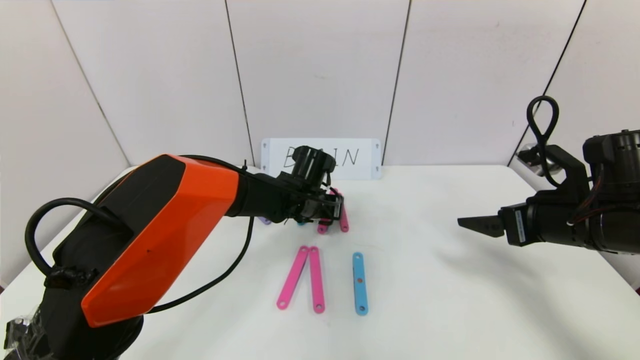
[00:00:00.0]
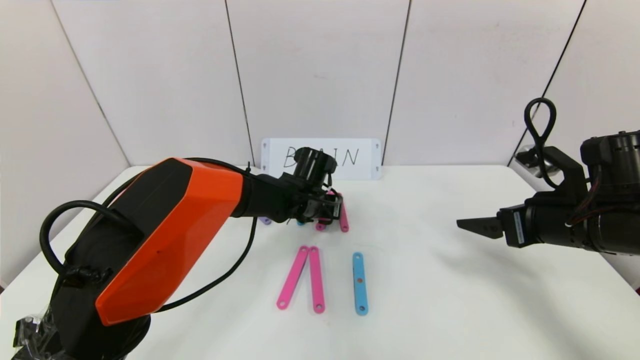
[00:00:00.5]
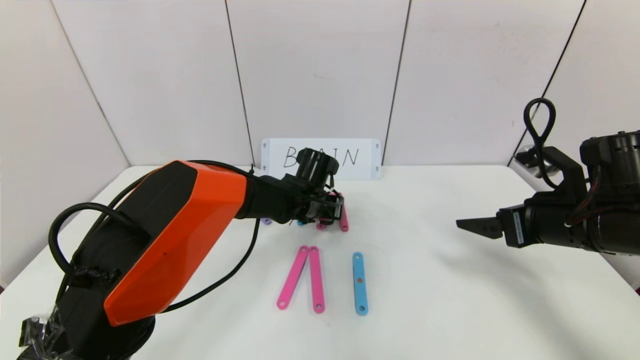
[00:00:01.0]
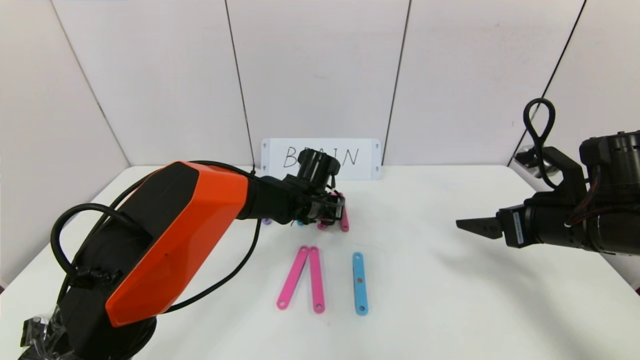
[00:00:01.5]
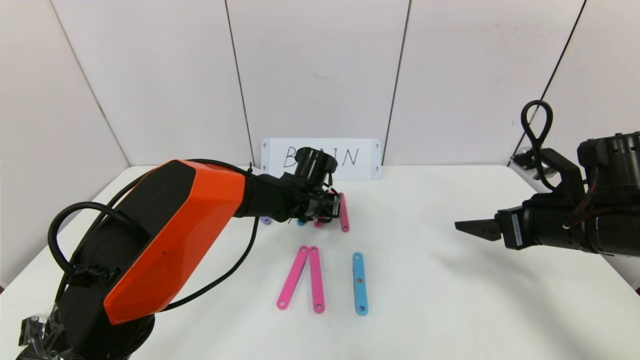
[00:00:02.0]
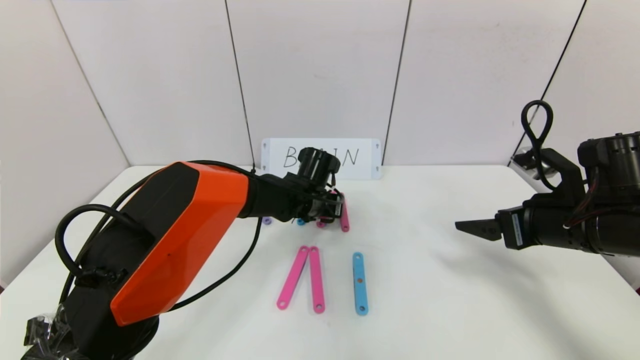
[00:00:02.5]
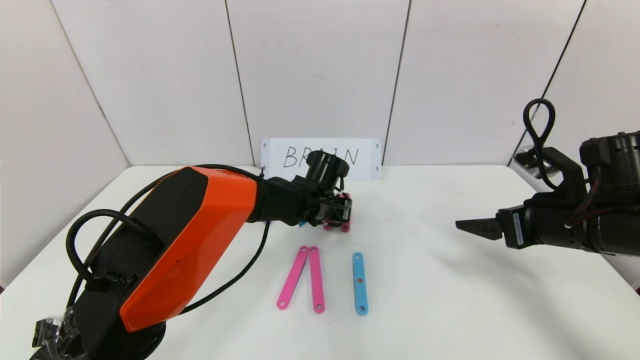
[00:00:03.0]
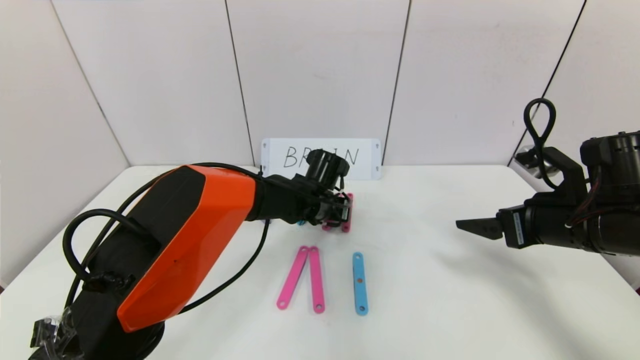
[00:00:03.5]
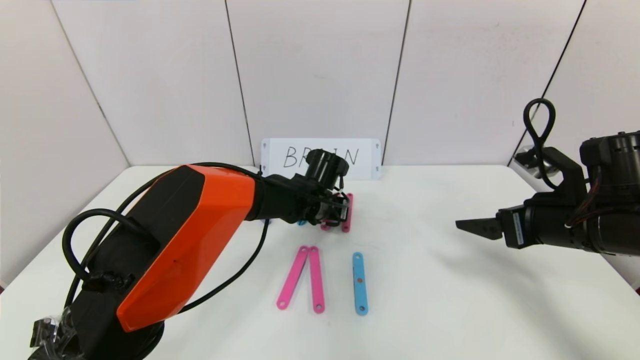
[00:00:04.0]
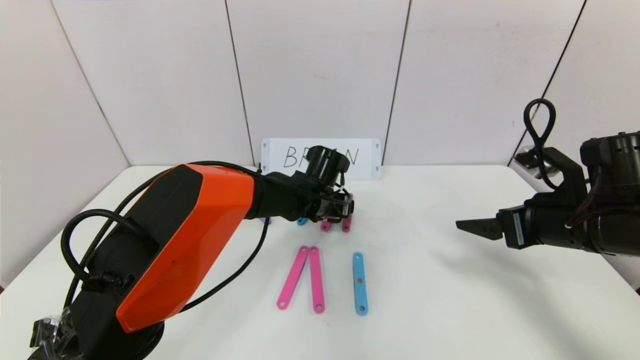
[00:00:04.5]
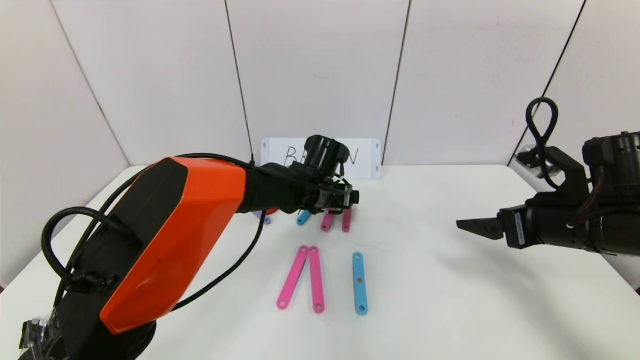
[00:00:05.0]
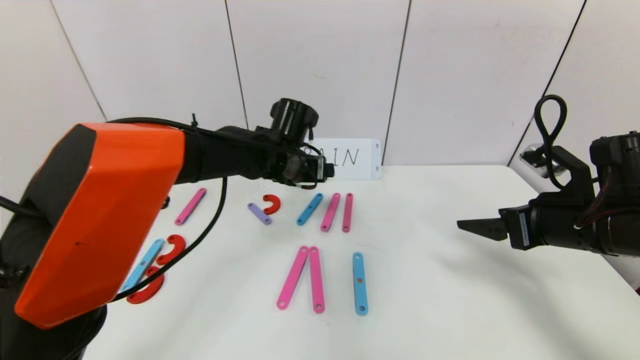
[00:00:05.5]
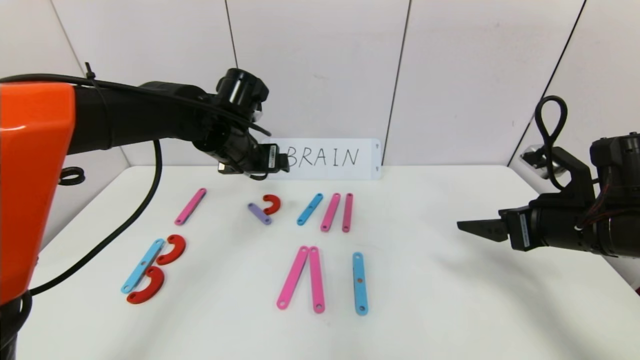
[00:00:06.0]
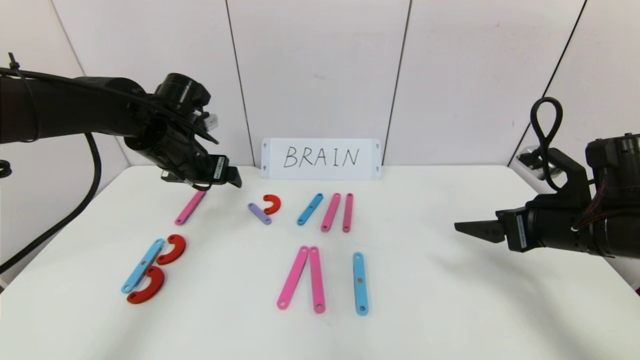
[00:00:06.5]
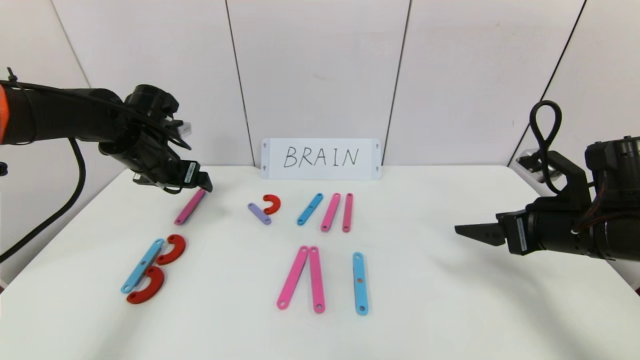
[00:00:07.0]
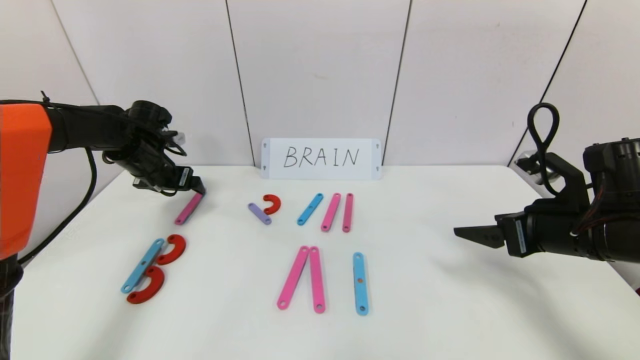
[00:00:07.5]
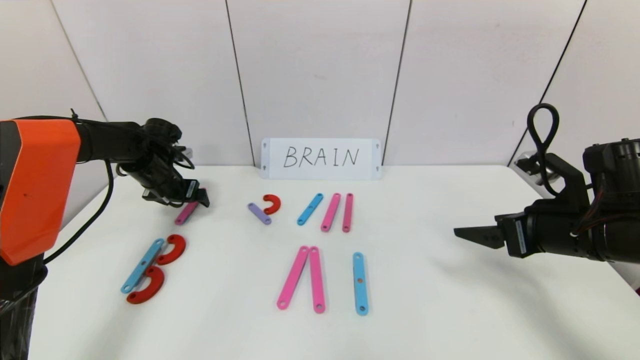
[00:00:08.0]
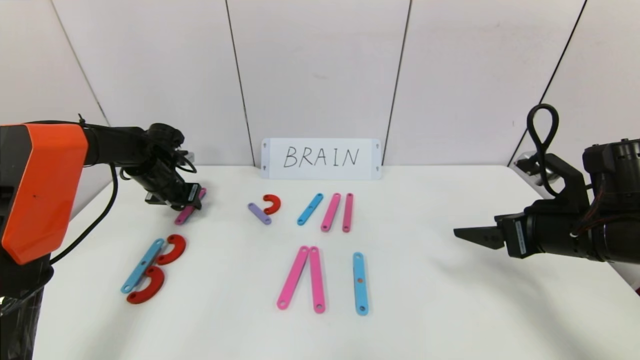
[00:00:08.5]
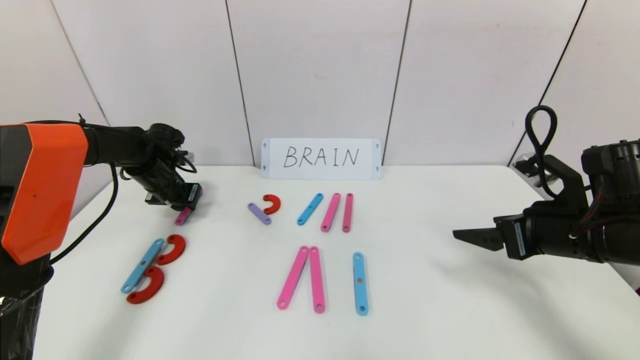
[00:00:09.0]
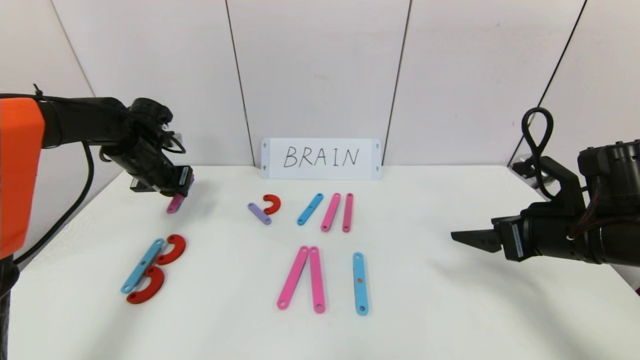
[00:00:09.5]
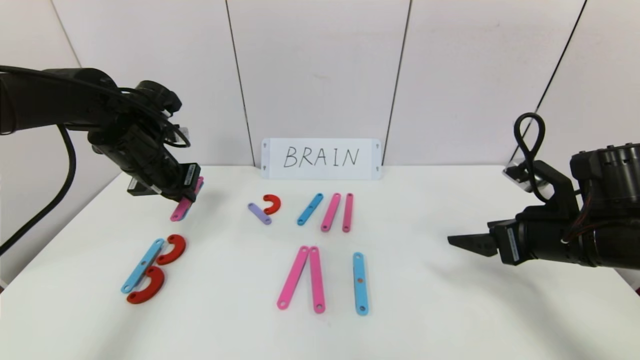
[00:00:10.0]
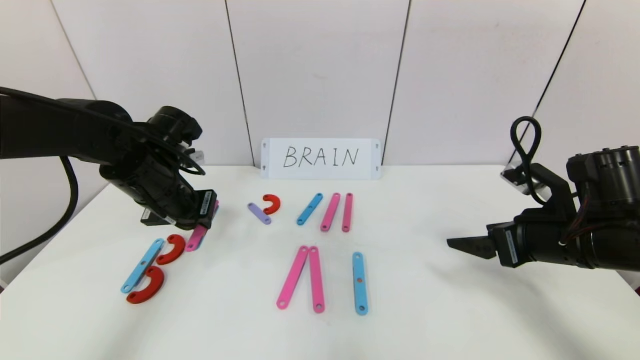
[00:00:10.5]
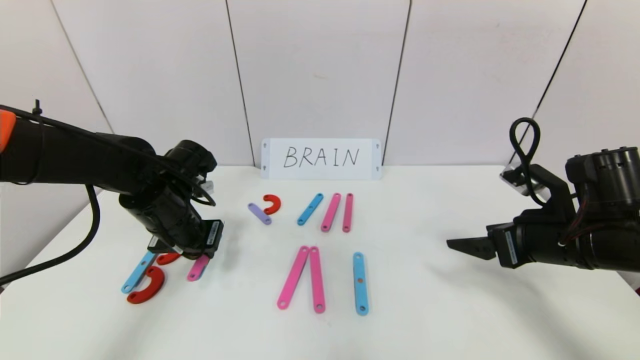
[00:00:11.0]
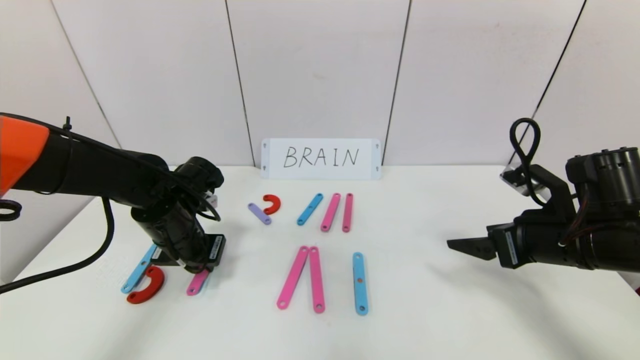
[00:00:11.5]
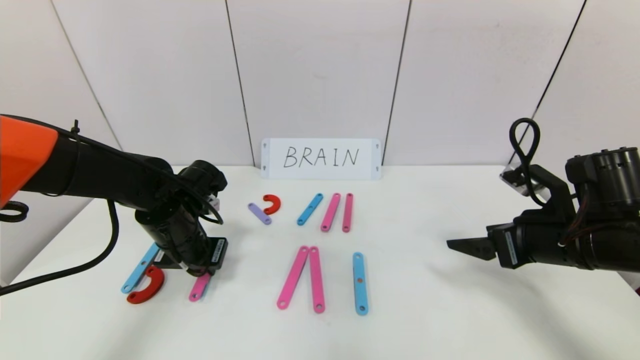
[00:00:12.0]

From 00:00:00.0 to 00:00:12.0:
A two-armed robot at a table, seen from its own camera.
Task of the whole recording: rearrange the word baai as brain.
Step, from 00:00:00.0 to 00:00:04.5: Disassemble the second character A.
From 00:00:00.0 to 00:00:04.0: There are only small adjustments of the grippers.
From 00:00:04.0 to 00:00:06.0: The left gripper is displaced to the left and upward by some 20 cm, and opens up.
From 00:00:06.0 to 00:00:08.0: The left gripper heads to the left, downward and forward, covering roughly 20 cm.
From 00:00:08.0 to 00:00:10.0: The left gripper travels backward, upward and to the right by roughly 15 cm, and closes its fingers.
From 00:00:10.0 to 00:00:12.0: The left gripper is displaced downward by about 10 cm.

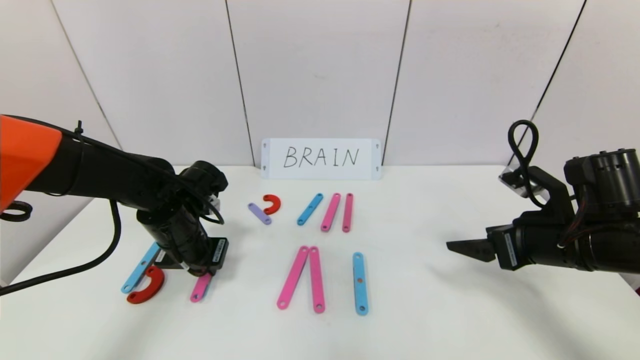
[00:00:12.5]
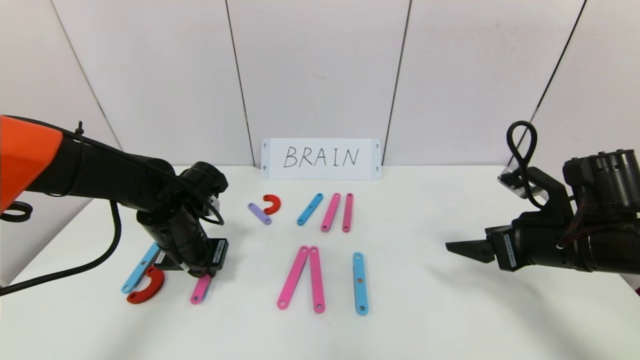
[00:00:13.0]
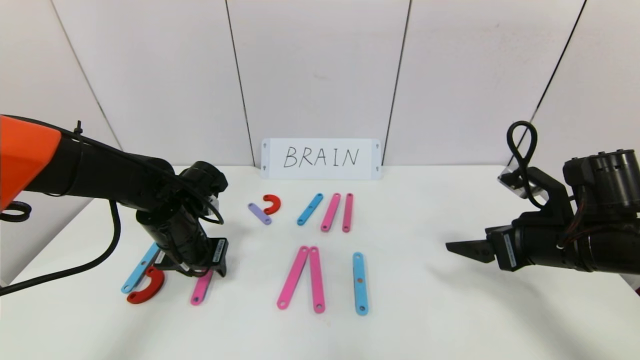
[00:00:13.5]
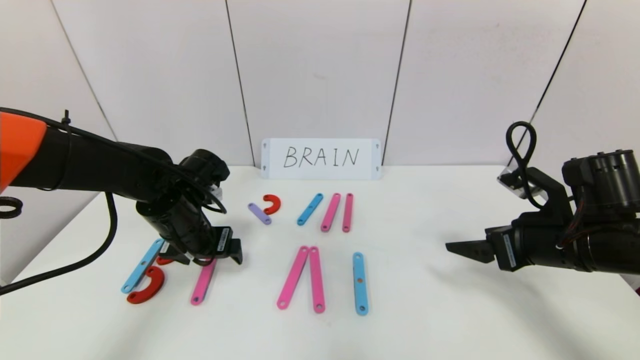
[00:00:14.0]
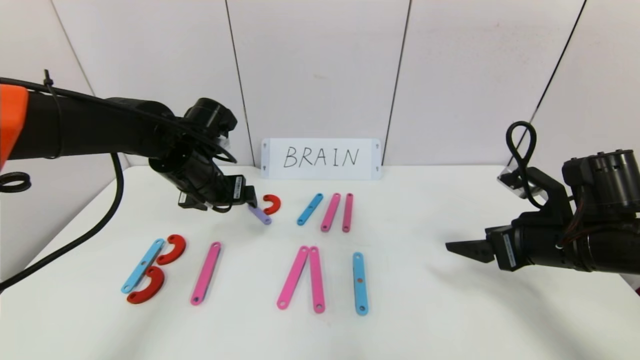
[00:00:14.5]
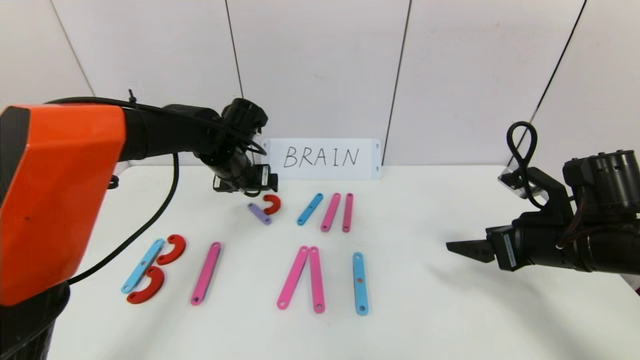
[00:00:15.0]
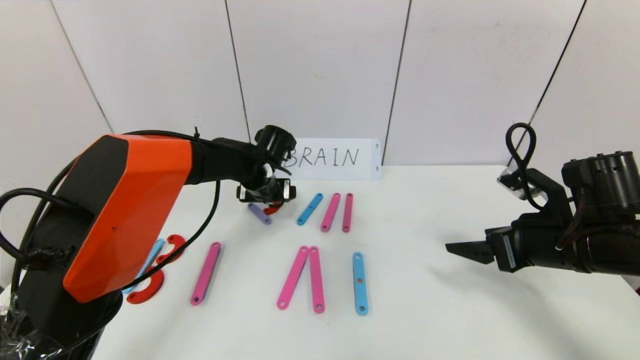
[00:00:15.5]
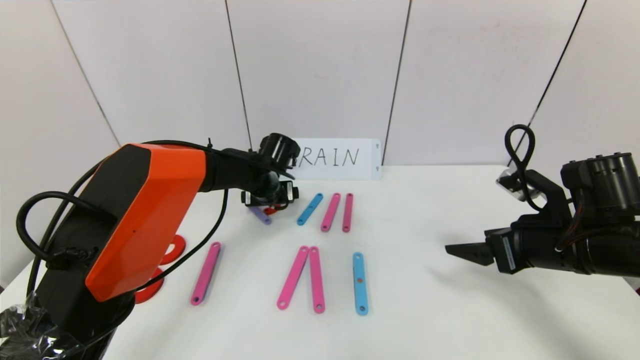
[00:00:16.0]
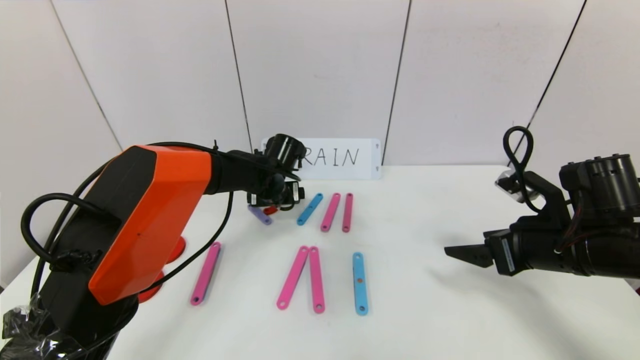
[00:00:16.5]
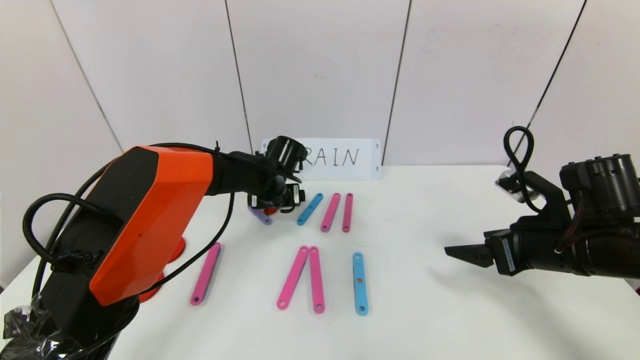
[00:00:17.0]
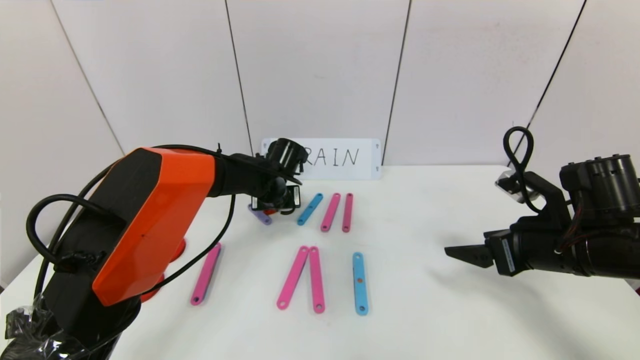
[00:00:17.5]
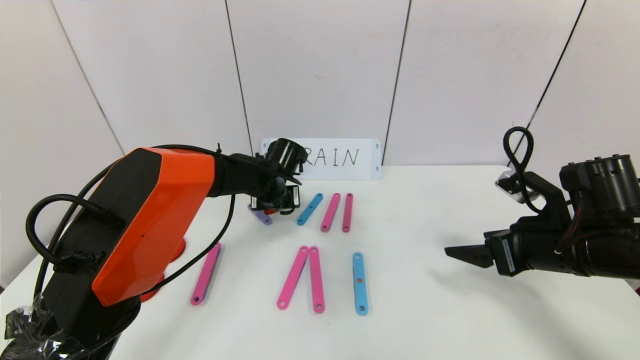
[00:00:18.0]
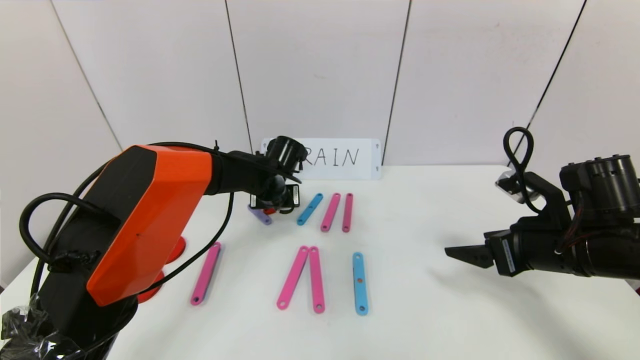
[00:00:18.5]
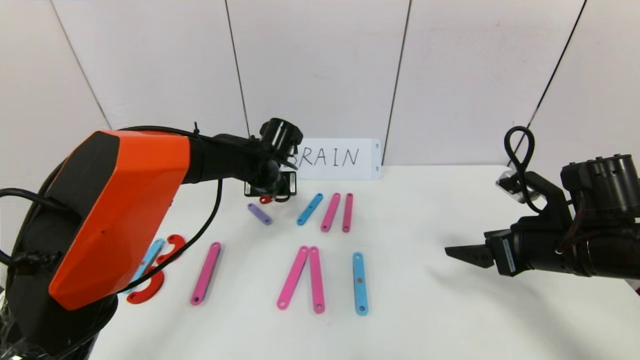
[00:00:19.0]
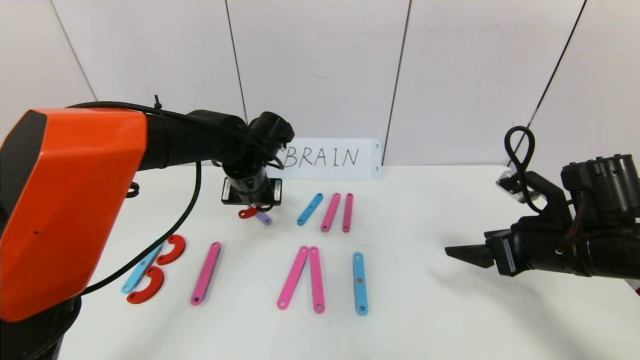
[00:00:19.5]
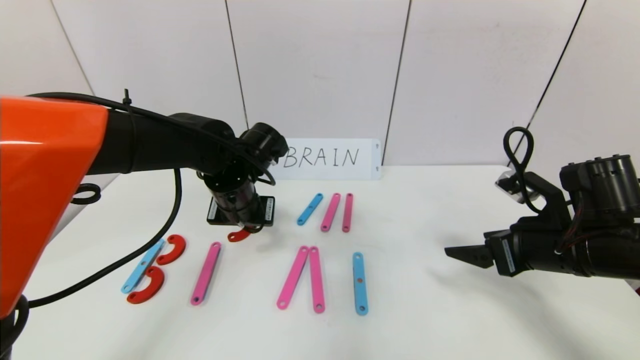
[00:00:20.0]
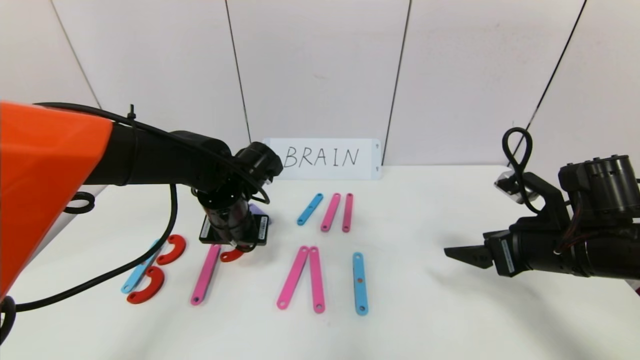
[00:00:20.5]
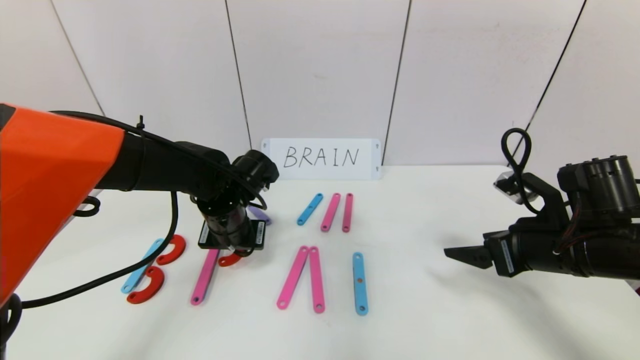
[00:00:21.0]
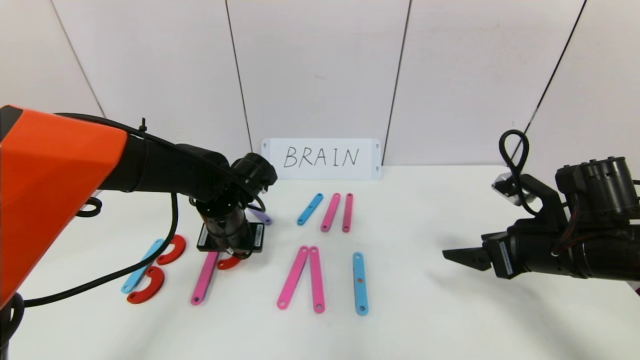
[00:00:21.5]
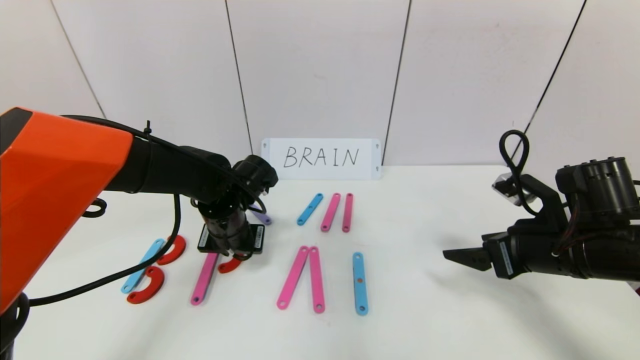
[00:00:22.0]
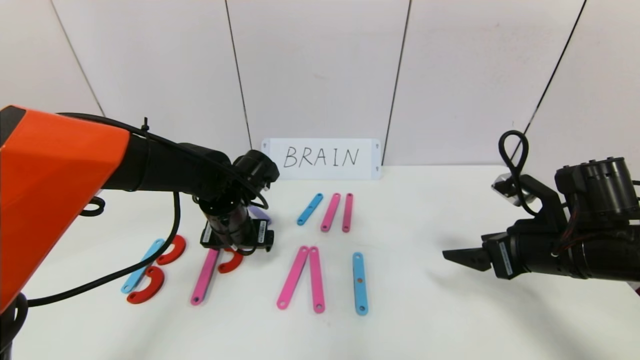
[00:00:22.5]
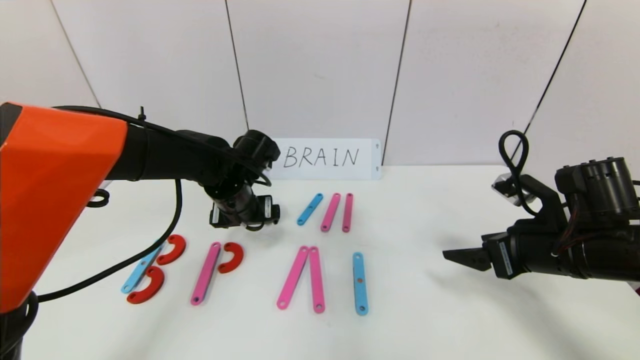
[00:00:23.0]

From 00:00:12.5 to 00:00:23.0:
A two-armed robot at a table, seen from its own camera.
Task of the whole recording: rearrange the word baai as brain.
From 00:00:12.5 to 00:00:14.5: The left gripper moves upward, approximately 10 cm, and opens.
From 00:00:14.5 to 00:00:16.5: The left gripper is displaced to the right, forward and downward by some 15 cm.
From 00:00:16.5 to 00:00:19.0: The left gripper closes.
From 00:00:19.0 to 00:00:21.0: The left gripper is displaced backward by about 10 cm.
From 00:00:21.0 to 00:00:23.0: The left gripper opens its fingers.
